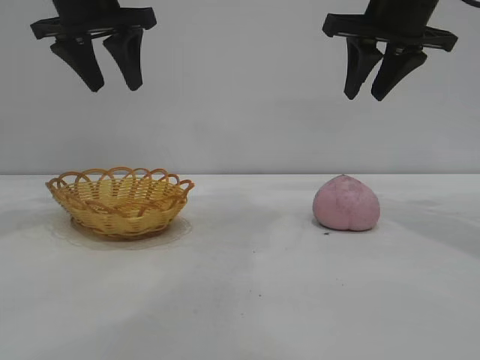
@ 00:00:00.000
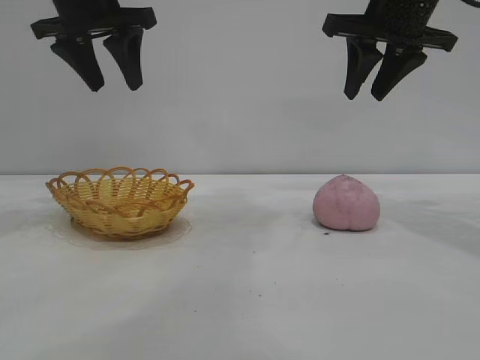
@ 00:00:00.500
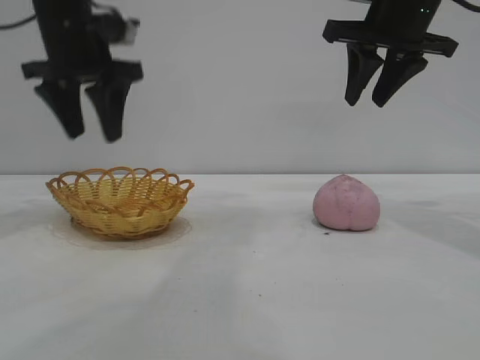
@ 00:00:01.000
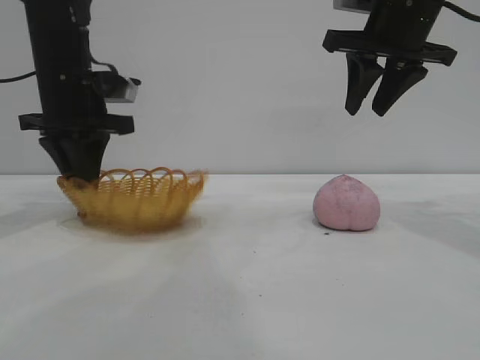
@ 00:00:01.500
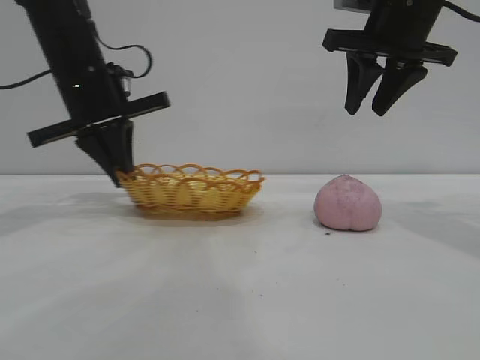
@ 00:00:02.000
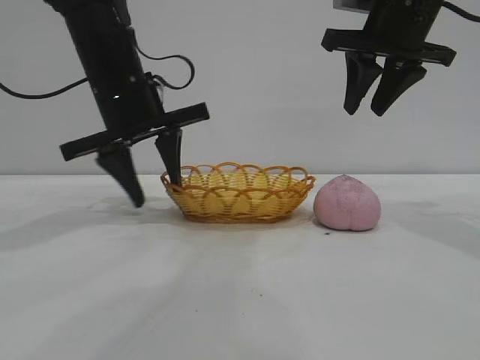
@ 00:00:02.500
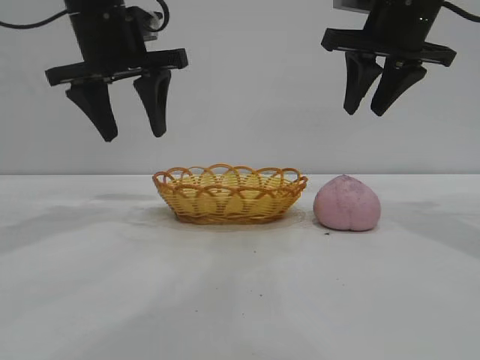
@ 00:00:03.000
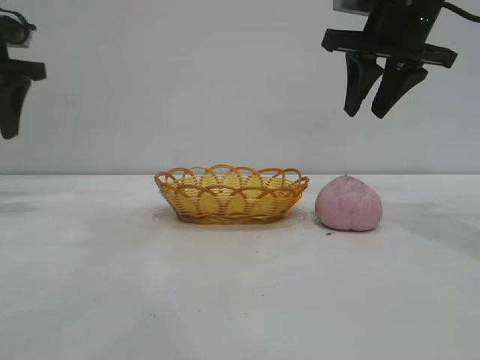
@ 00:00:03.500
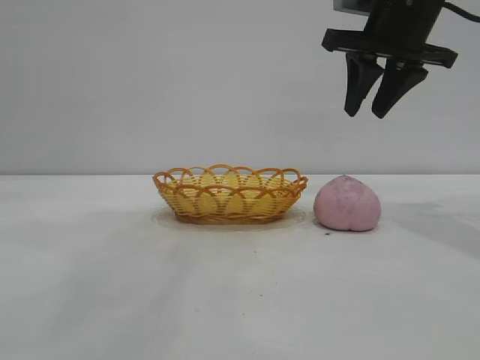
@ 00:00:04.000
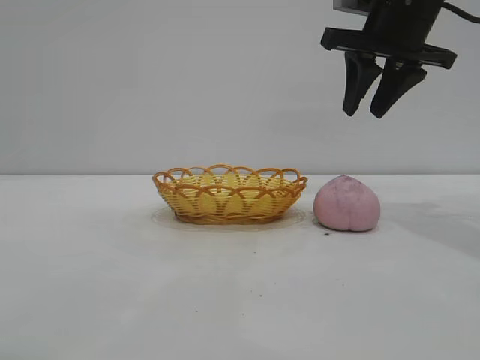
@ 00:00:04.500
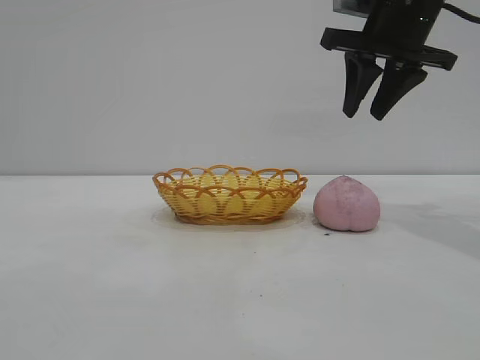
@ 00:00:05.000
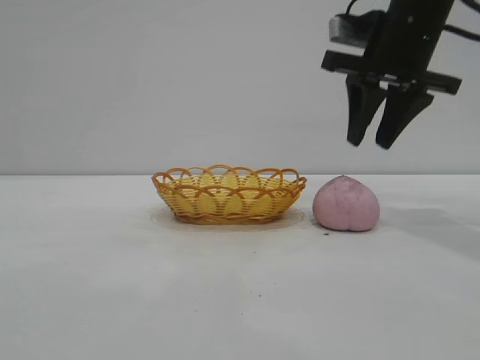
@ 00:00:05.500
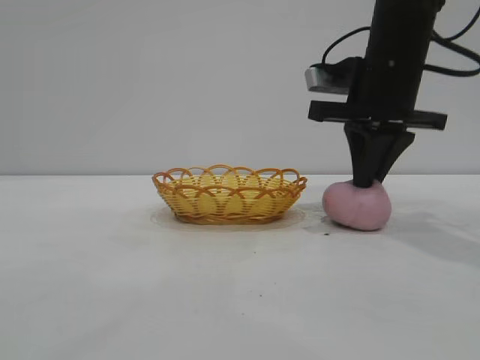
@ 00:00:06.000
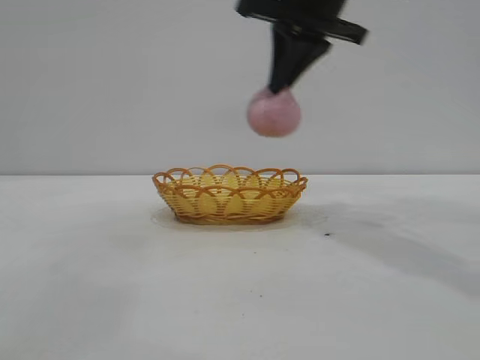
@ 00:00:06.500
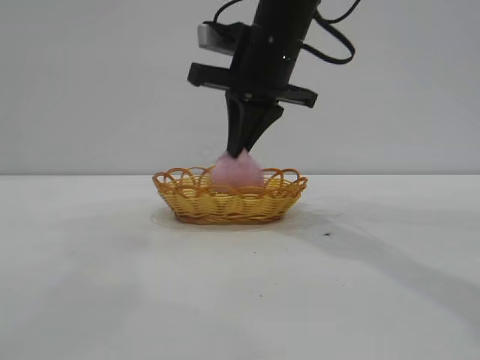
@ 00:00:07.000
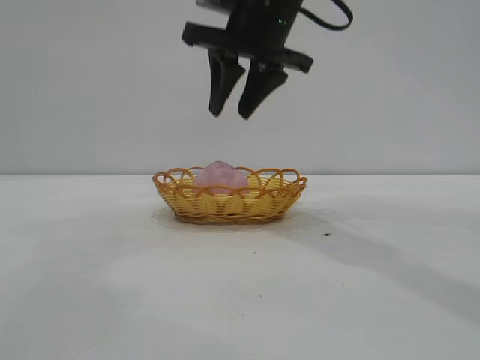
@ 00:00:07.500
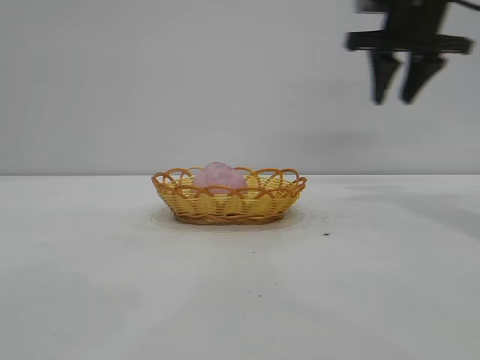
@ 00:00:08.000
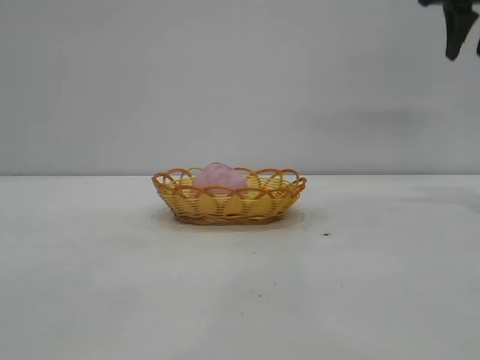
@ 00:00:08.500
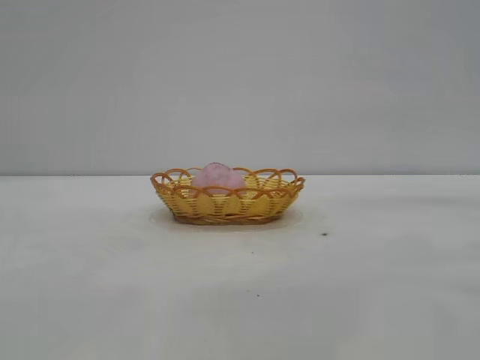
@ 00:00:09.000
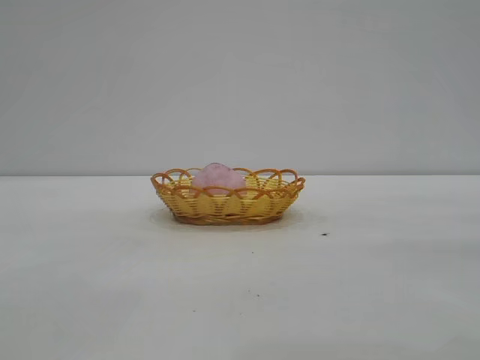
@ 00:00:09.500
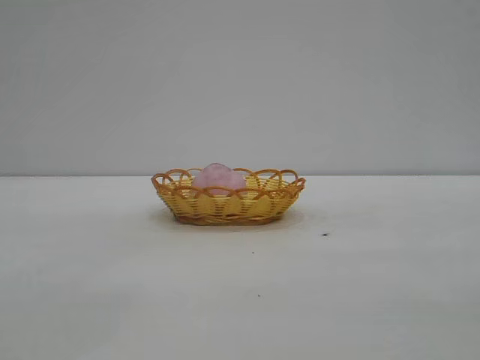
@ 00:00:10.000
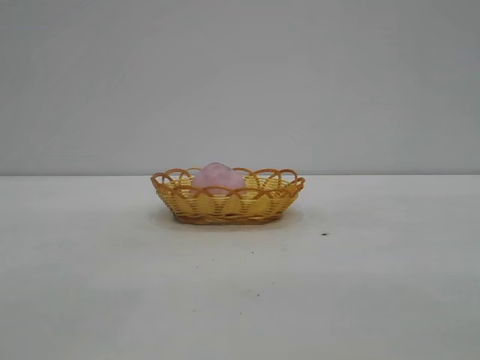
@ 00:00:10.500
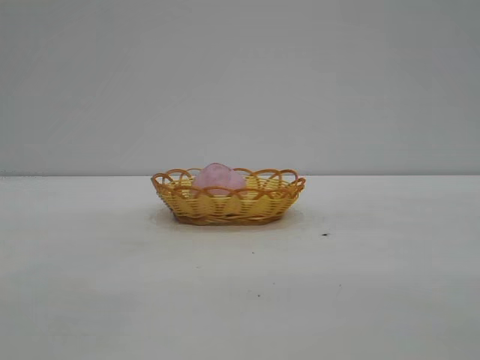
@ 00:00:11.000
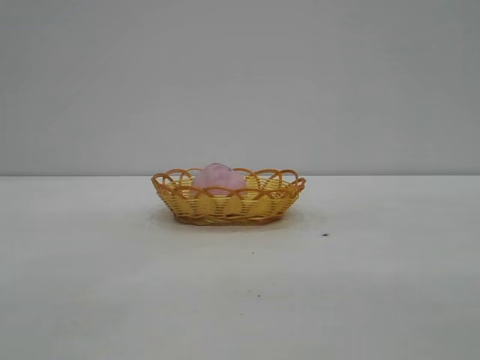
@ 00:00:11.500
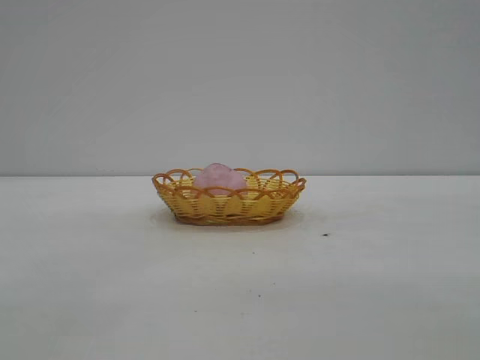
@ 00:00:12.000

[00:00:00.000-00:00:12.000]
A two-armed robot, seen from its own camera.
Task of the whole recording: pick up the peach and put it into the basket.
Step, 00:00:00.000 to 00:00:03.000: Move the basket to the center of view.
Step, 00:00:03.500 to 00:00:06.000: Pick up the peach.
Step, 00:00:06.500 to 00:00:07.500: place the peach into the basket.
